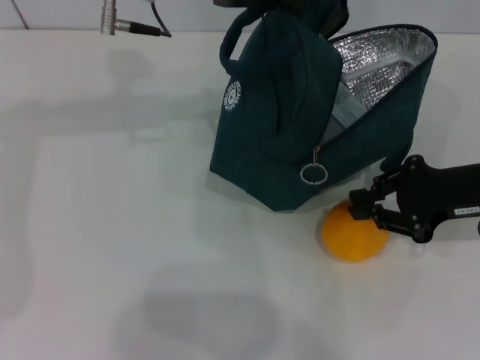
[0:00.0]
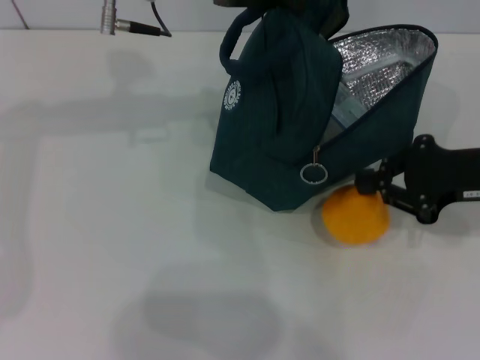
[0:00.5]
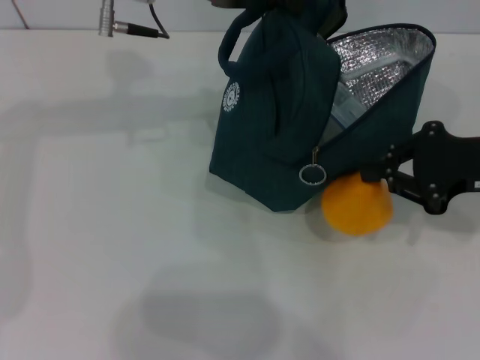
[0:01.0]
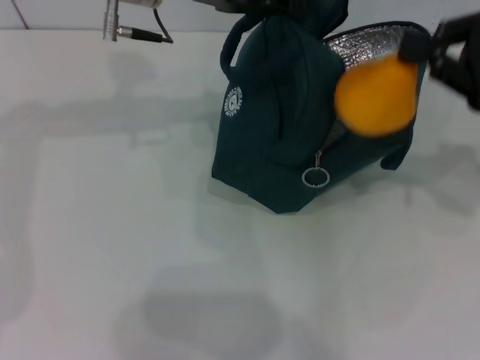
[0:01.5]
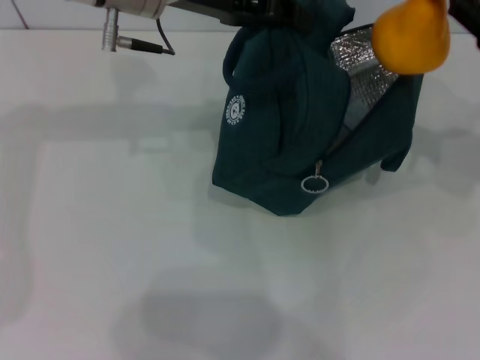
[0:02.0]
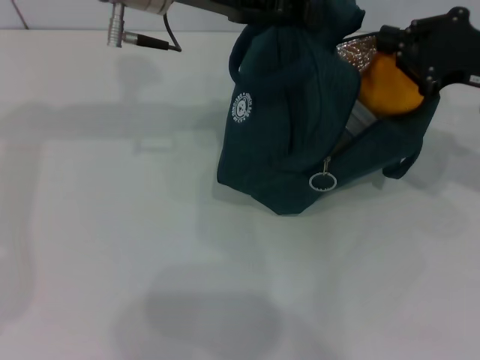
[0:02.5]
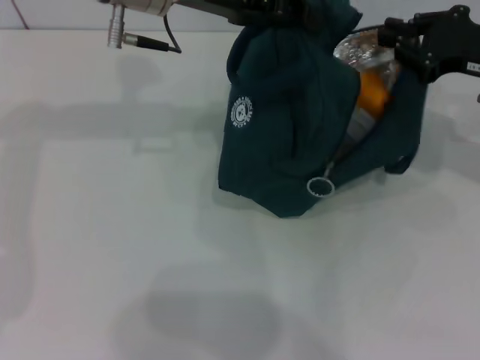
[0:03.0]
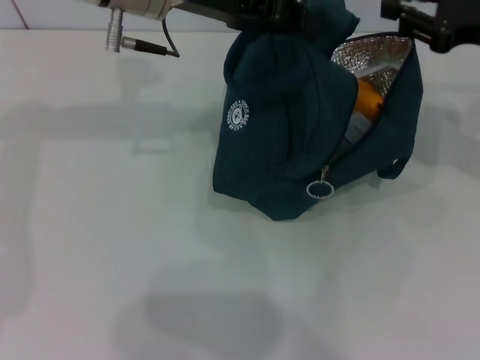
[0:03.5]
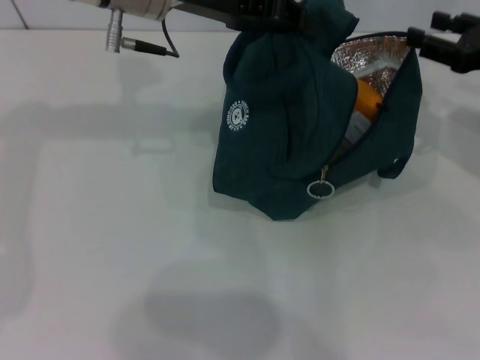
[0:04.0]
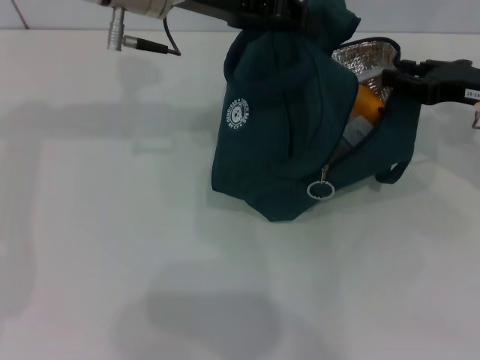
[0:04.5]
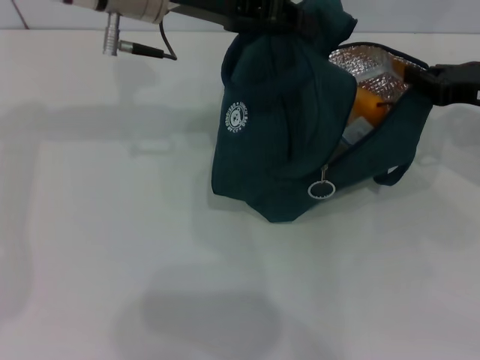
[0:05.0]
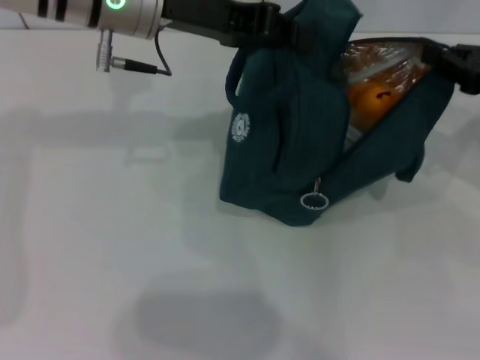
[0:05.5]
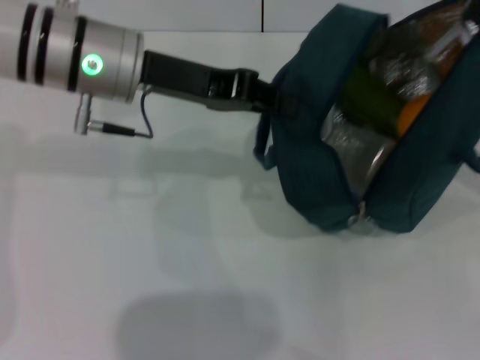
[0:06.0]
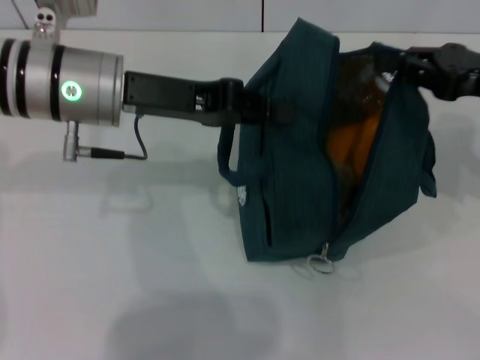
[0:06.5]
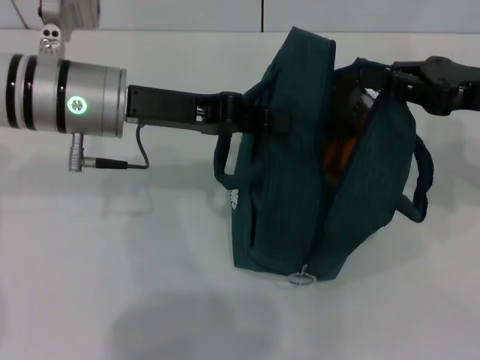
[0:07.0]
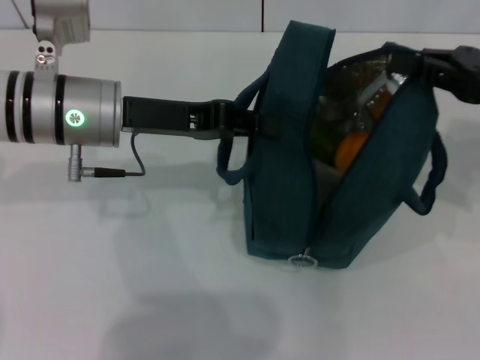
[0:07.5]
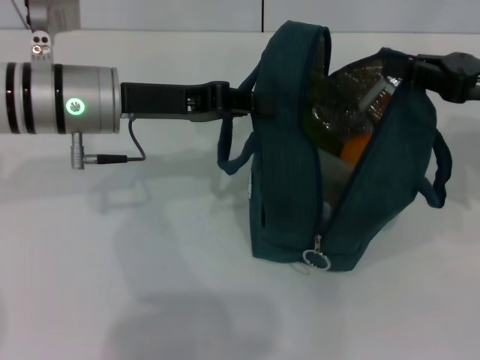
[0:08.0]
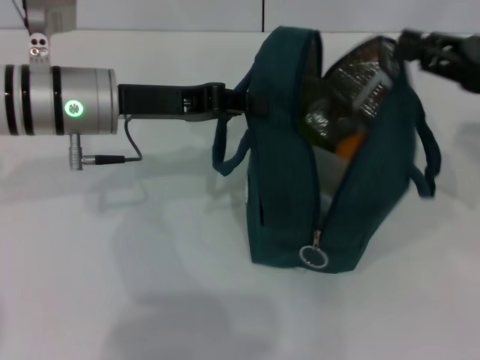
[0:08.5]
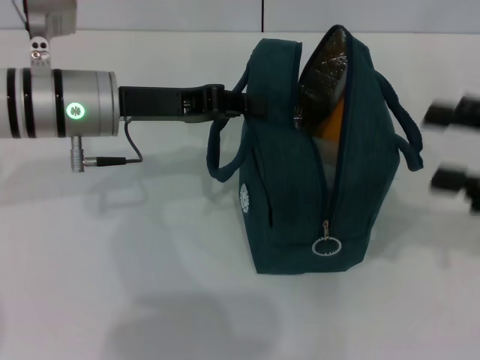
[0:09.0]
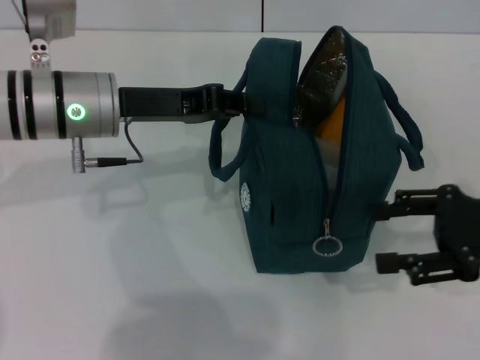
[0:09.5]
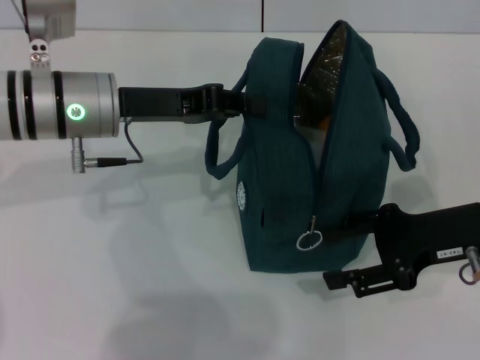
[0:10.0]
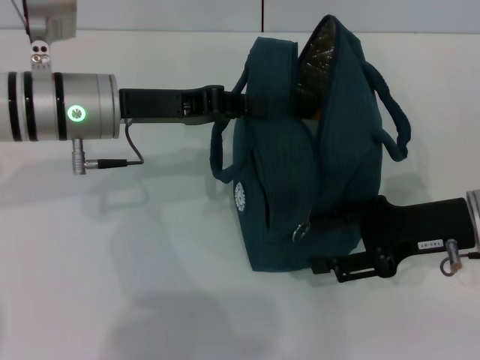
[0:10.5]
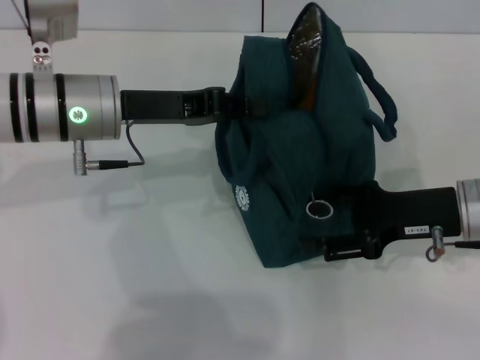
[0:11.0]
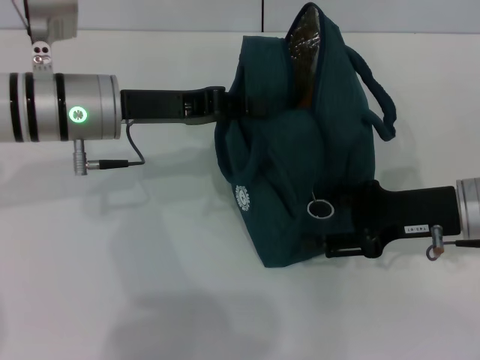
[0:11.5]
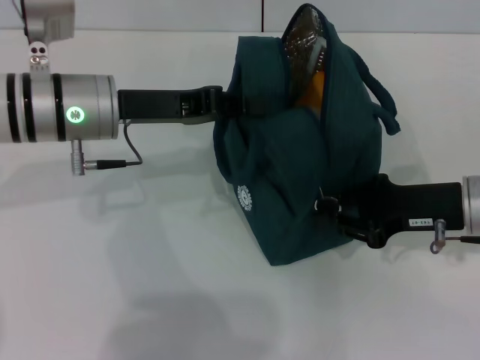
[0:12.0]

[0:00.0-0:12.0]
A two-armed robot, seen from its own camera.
Step, 0:03.5 to 0:08.0: Hold the lunch bag with your right hand.
0:00.0 to 0:02.0: The right gripper travels upward by some 10 cm.
0:02.0 to 0:04.0: The right gripper moves downward, roughly 5 cm, and opens.
0:04.0 to 0:06.0: The right gripper changes place by some 5 cm, and closes its fingers, while the left gripper changes place by approximately 5 cm.
0:06.0 to 0:08.0: The right gripper changes place by approximately 5 cm. The left gripper moves about 5 cm.
0:08.0 to 0:10.0: The right gripper is displaced downward and backward by roughly 10 cm, and opens.
0:10.0 to 0:12.0: The right gripper closes its fingers.

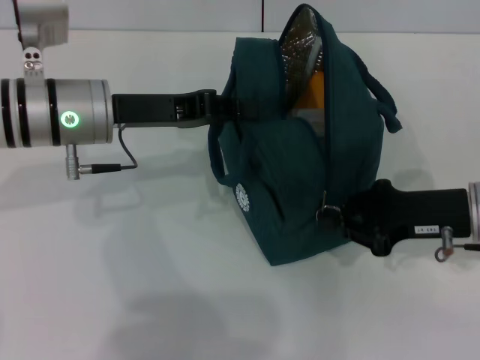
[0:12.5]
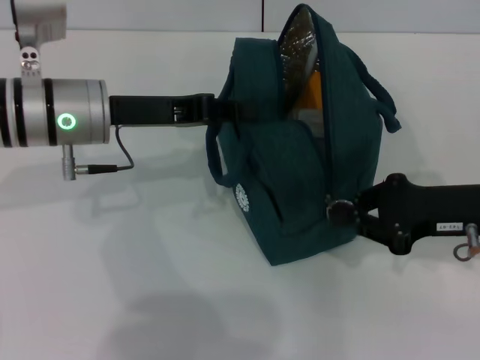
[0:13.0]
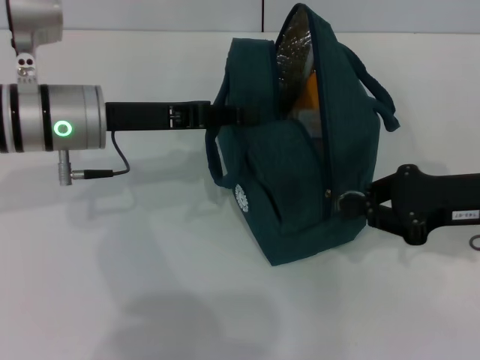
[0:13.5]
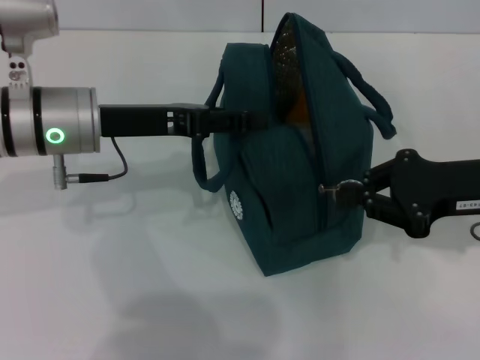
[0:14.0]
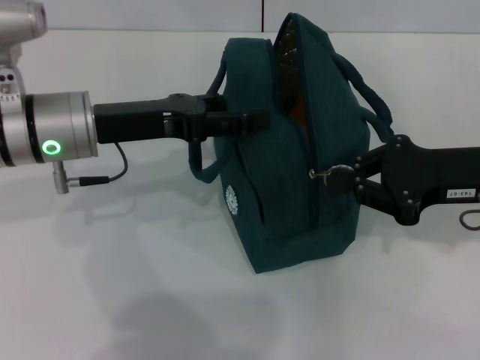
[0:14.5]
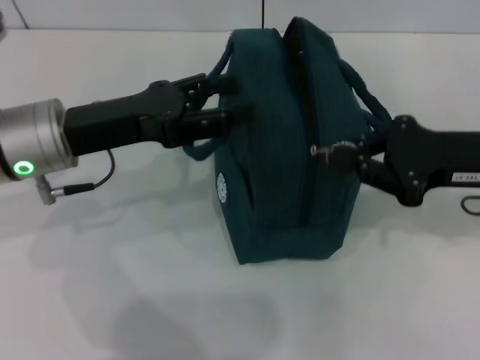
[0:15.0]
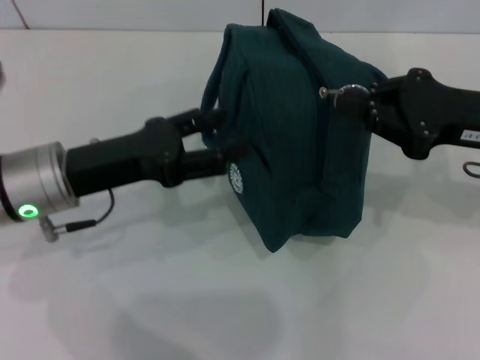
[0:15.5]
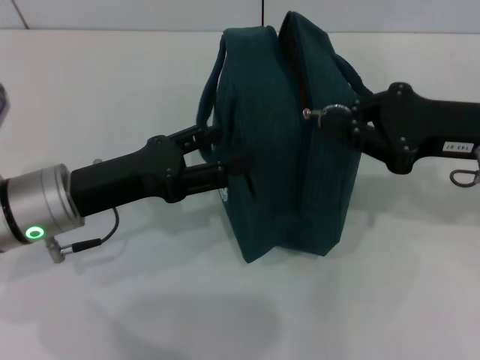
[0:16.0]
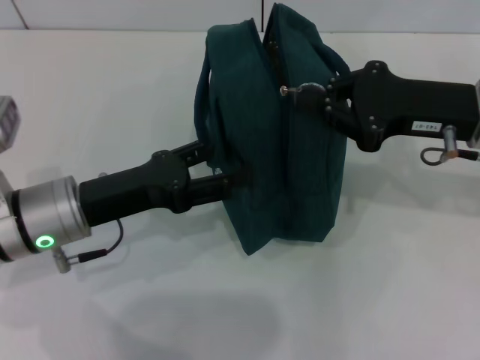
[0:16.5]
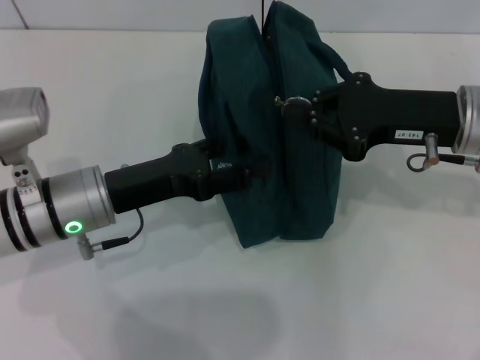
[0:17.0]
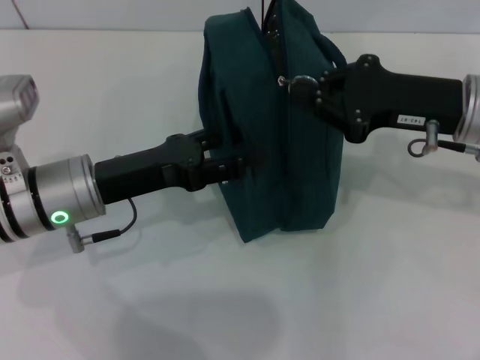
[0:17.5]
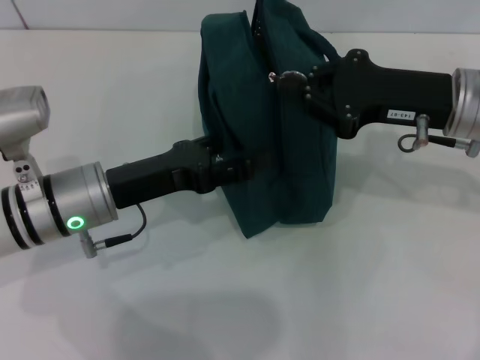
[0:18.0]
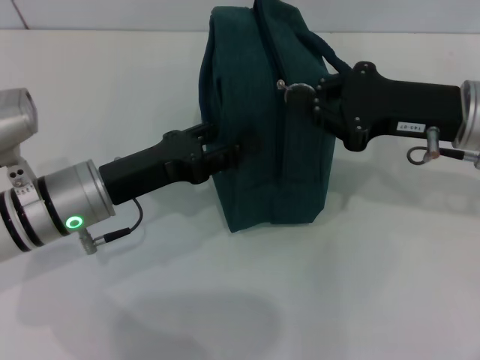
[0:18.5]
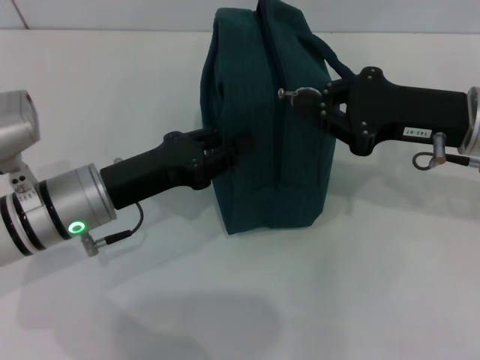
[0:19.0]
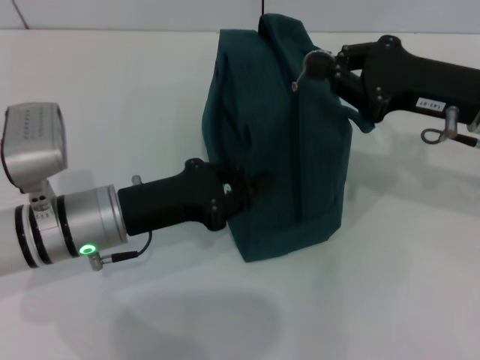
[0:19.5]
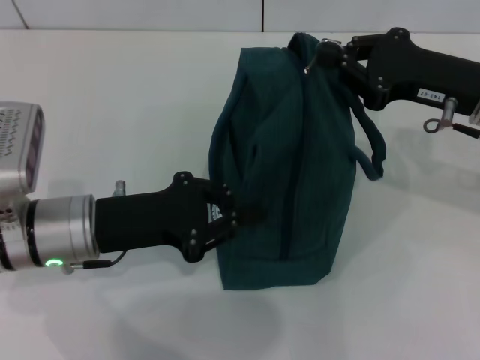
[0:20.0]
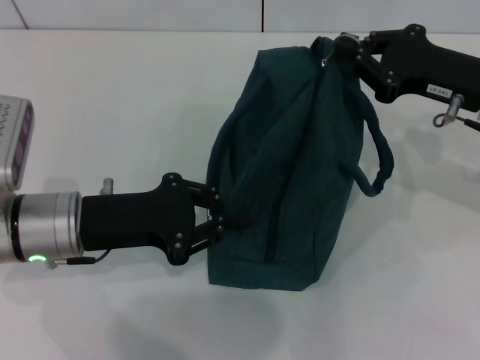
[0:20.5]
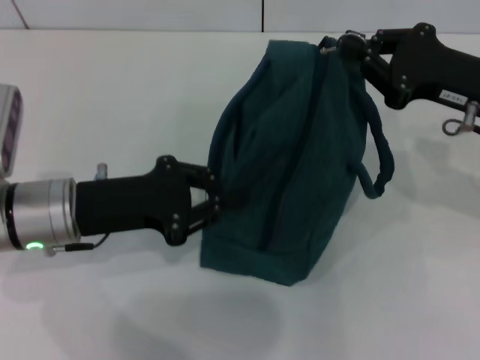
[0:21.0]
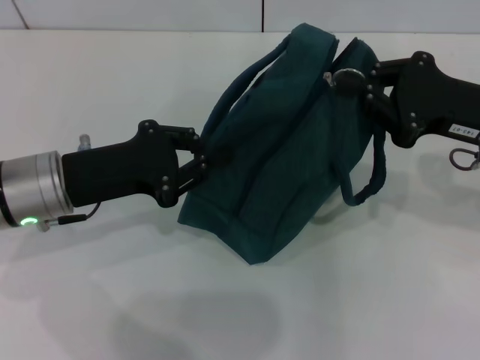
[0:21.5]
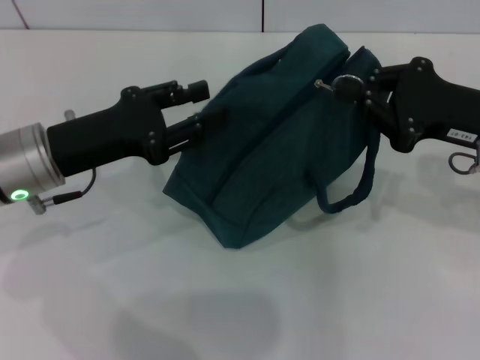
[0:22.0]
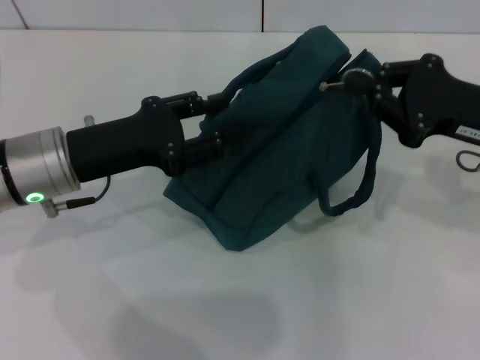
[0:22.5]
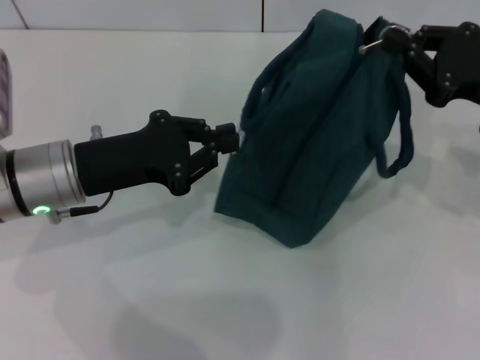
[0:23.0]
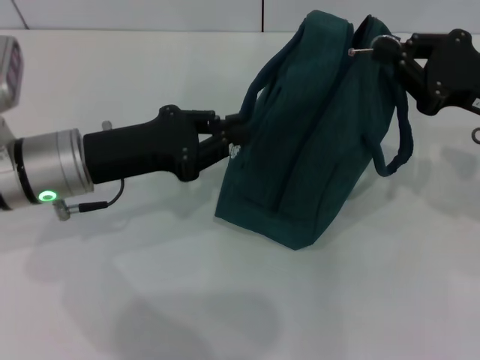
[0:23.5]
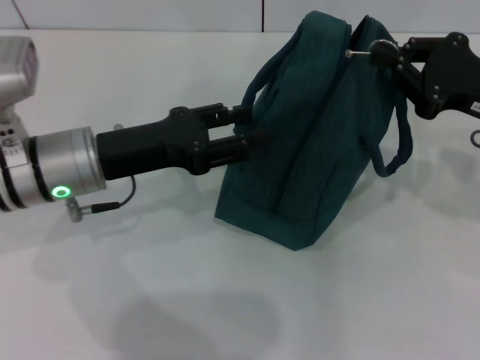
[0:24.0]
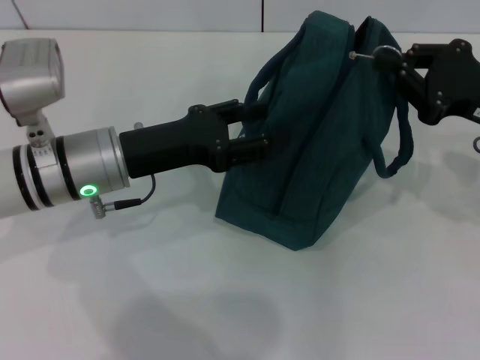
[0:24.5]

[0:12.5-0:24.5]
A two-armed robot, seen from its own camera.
Step, 0:12.5 to 0:15.0: Hold the lunch bag with your left hand.
0:12.5 to 0:14.5: The left gripper opens its fingers; the right gripper shifts some 5 cm upward.
0:14.5 to 0:16.5: The left gripper shifts some 10 cm backward and downward.
0:16.5 to 0:18.5: The grippers stay close to where they were, moving slightly.
0:18.5 to 0:20.5: The left gripper closes.
0:20.5 to 0:22.5: The left gripper opens up.
0:22.5 to 0:24.5: The left gripper closes and opens again.

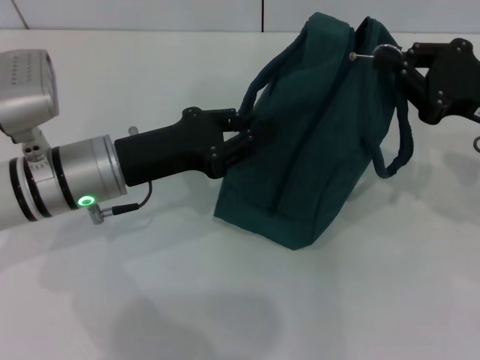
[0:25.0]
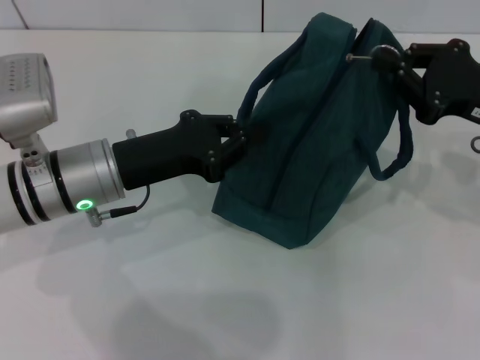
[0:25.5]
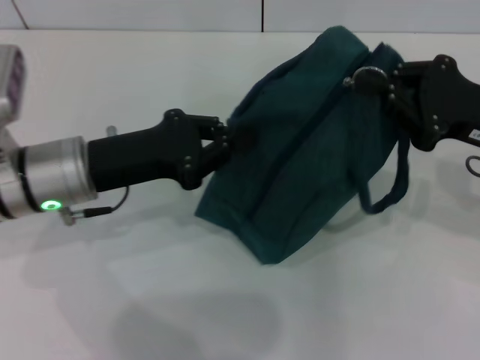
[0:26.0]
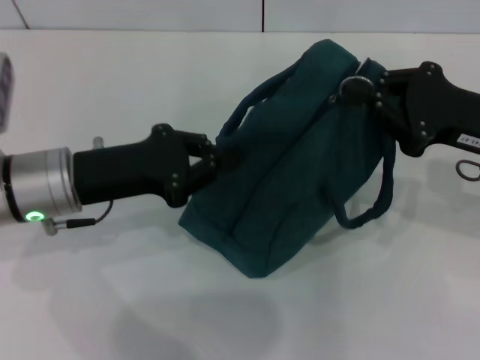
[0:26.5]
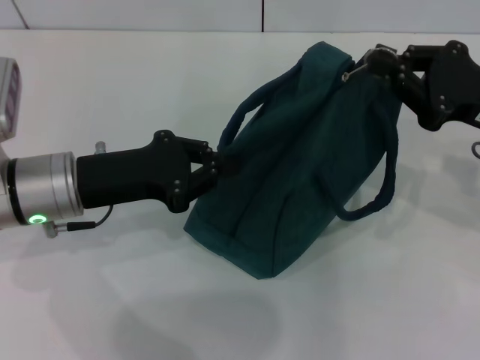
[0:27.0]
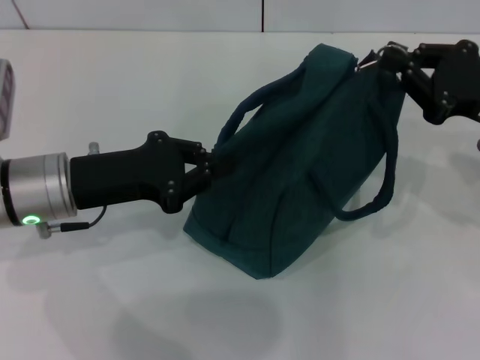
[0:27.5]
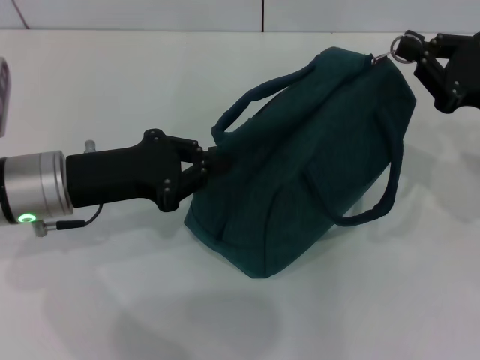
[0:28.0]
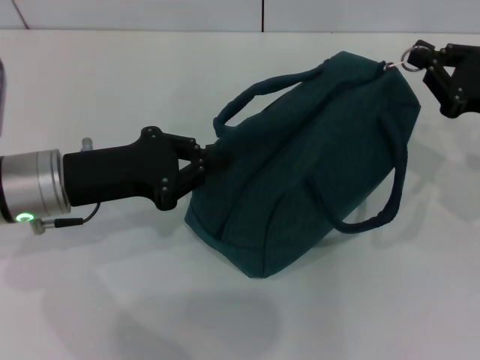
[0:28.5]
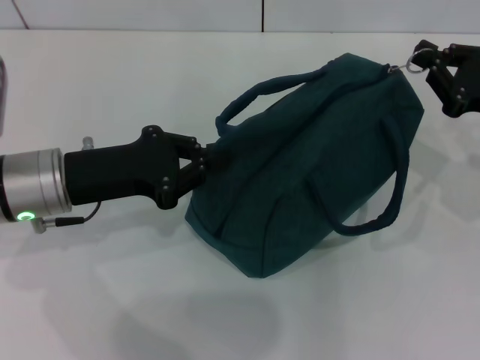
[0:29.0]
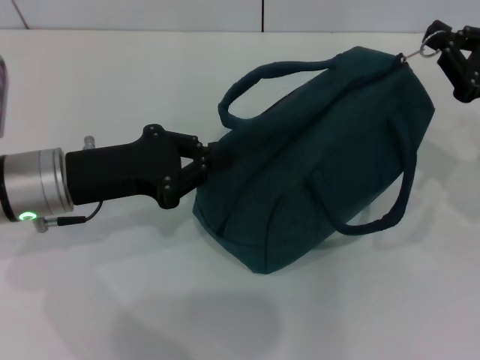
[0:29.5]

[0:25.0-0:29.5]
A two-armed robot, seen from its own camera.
0:25.0 to 0:27.0: The left gripper closes its fingers.
0:27.0 to 0:29.5: The grippers stay close to where they were, moving slightly.
